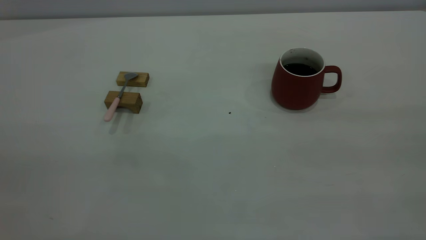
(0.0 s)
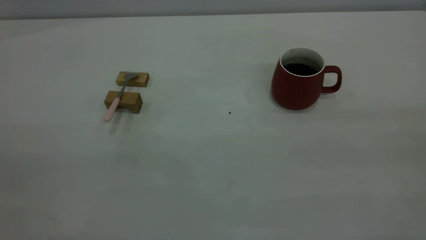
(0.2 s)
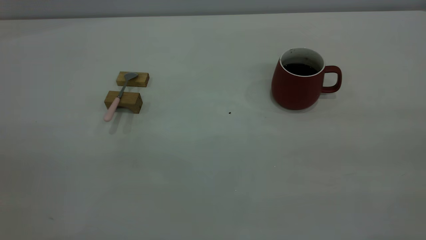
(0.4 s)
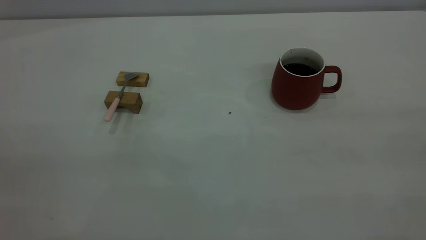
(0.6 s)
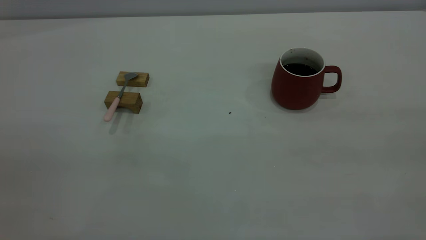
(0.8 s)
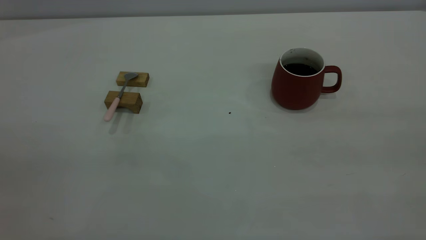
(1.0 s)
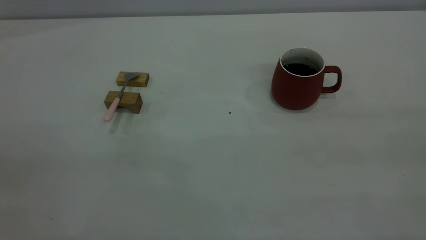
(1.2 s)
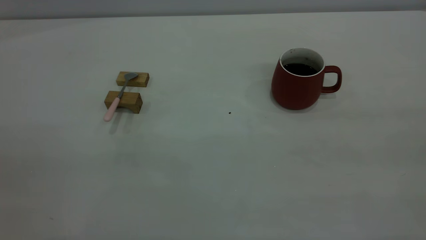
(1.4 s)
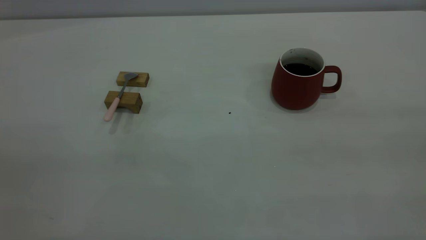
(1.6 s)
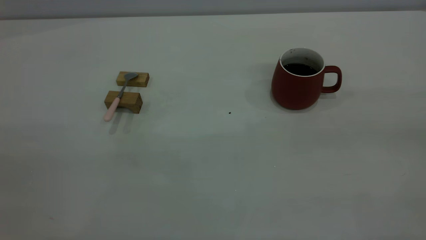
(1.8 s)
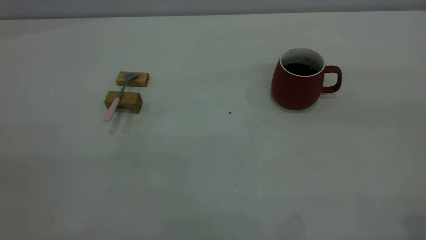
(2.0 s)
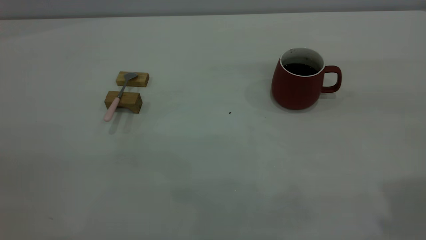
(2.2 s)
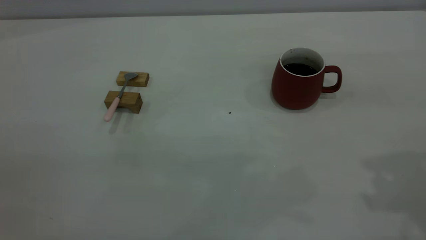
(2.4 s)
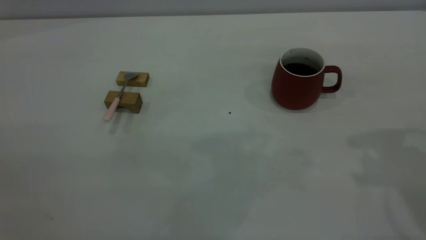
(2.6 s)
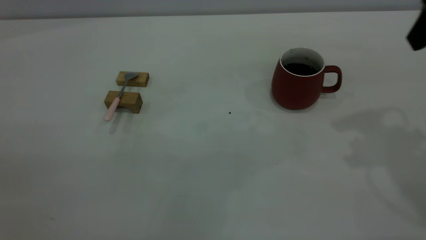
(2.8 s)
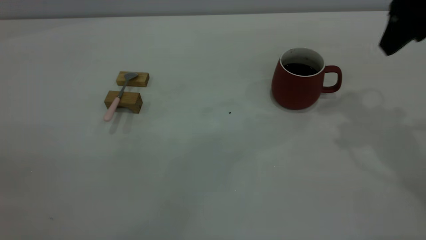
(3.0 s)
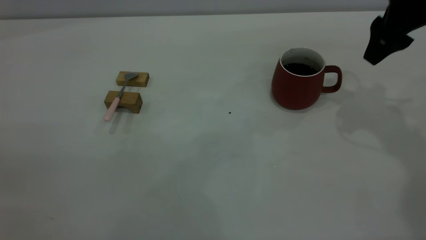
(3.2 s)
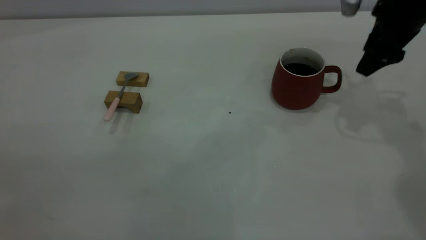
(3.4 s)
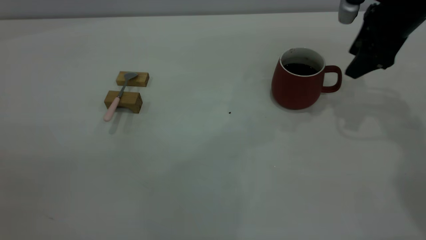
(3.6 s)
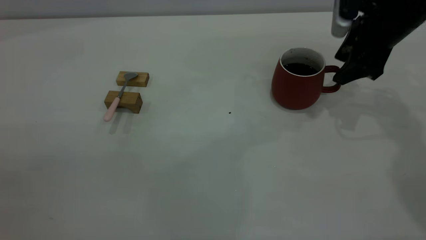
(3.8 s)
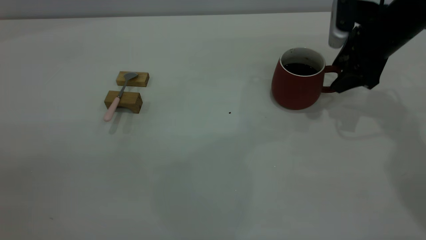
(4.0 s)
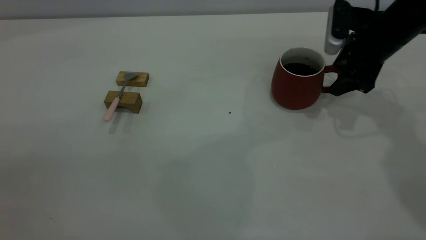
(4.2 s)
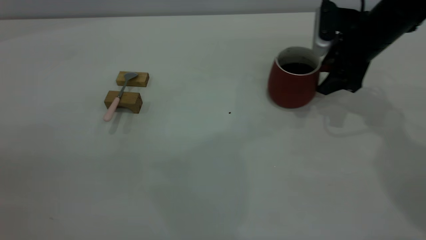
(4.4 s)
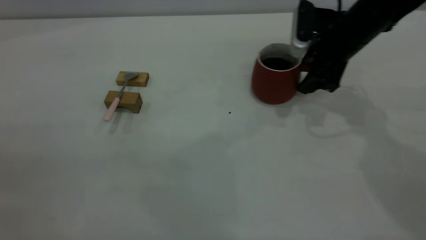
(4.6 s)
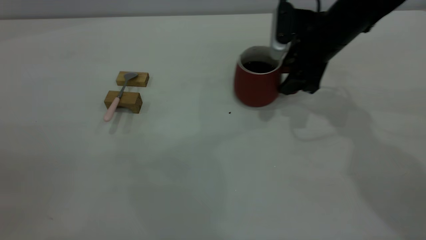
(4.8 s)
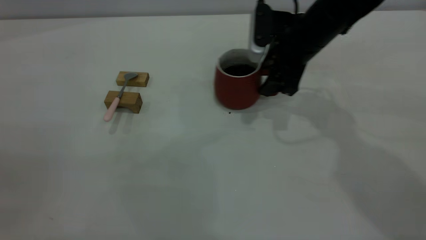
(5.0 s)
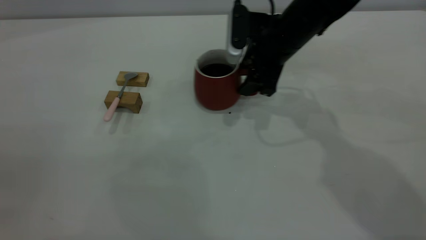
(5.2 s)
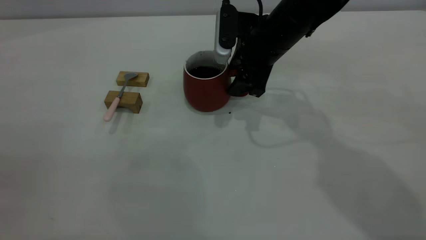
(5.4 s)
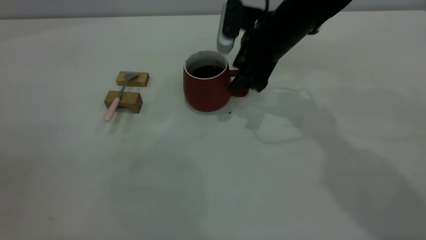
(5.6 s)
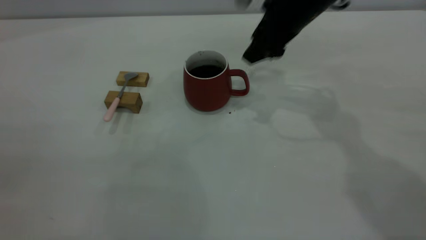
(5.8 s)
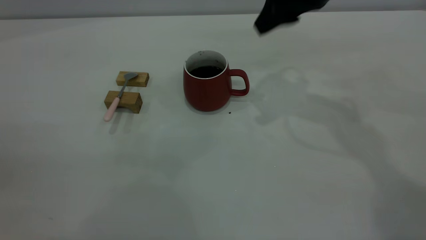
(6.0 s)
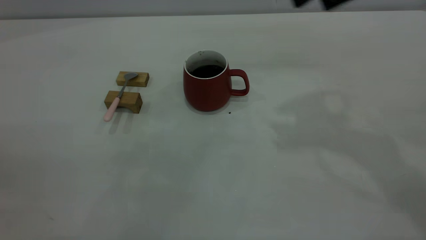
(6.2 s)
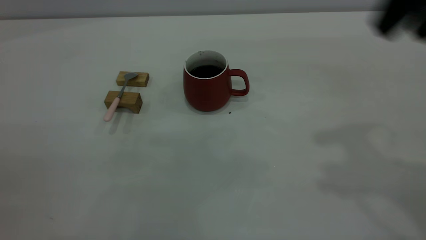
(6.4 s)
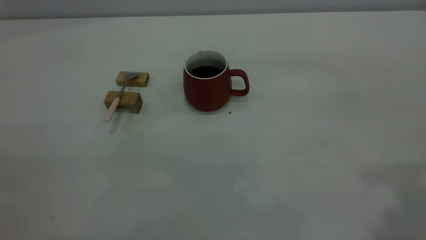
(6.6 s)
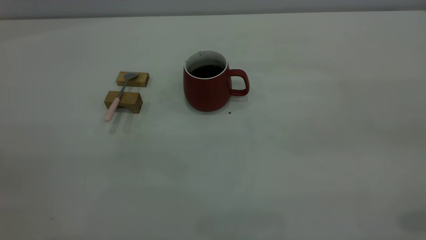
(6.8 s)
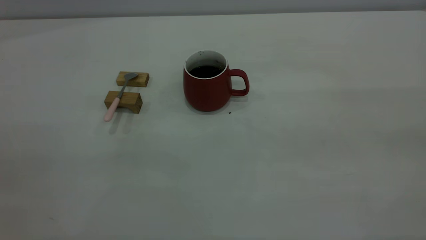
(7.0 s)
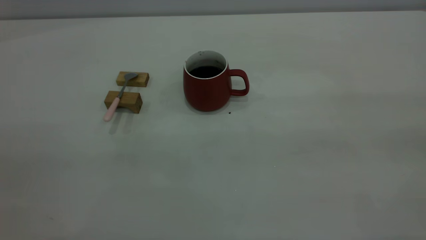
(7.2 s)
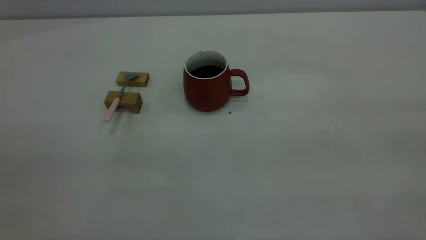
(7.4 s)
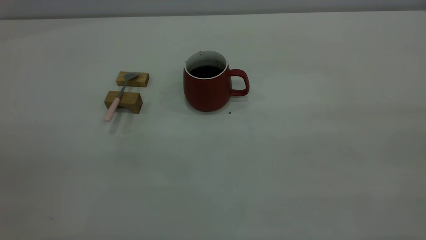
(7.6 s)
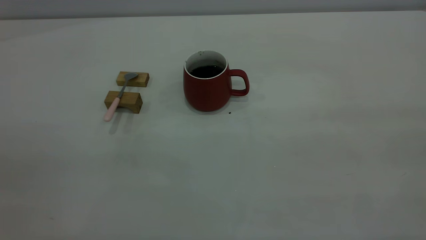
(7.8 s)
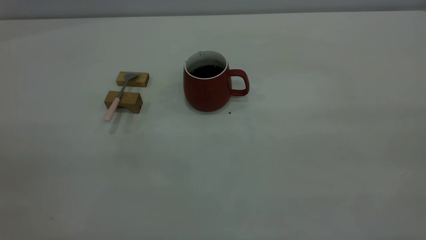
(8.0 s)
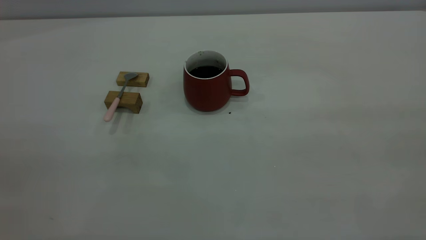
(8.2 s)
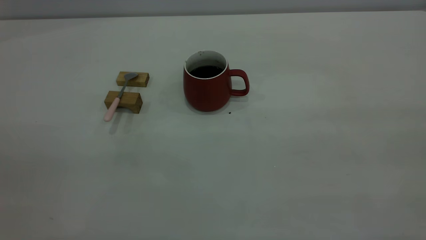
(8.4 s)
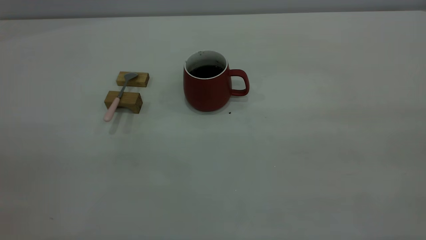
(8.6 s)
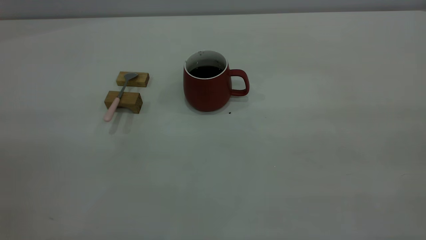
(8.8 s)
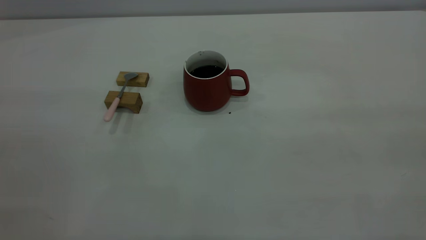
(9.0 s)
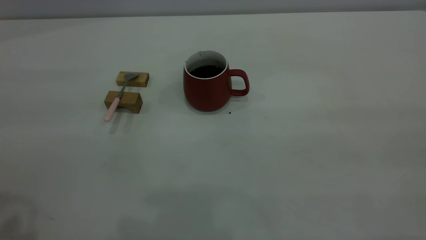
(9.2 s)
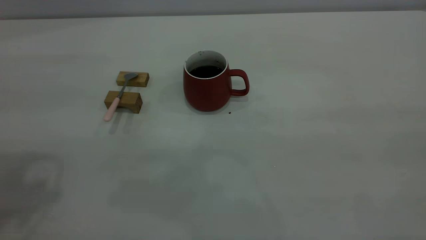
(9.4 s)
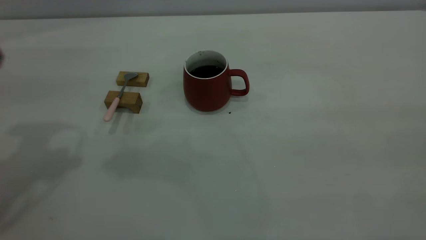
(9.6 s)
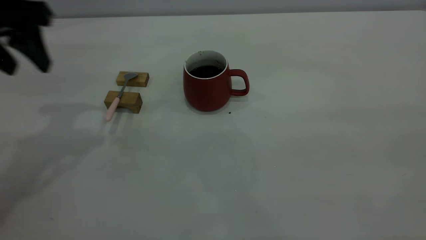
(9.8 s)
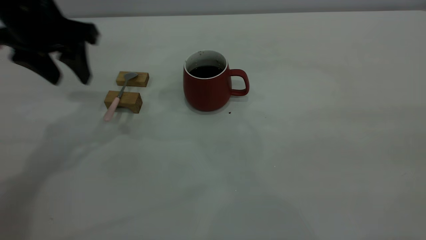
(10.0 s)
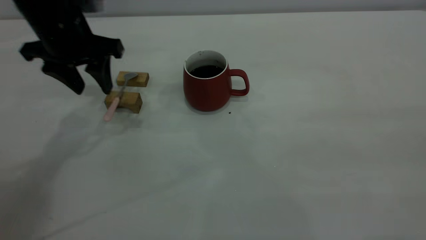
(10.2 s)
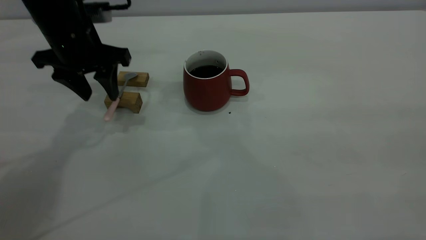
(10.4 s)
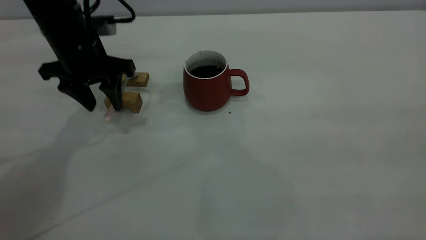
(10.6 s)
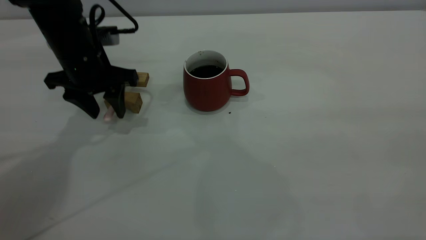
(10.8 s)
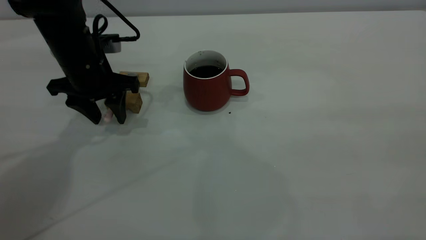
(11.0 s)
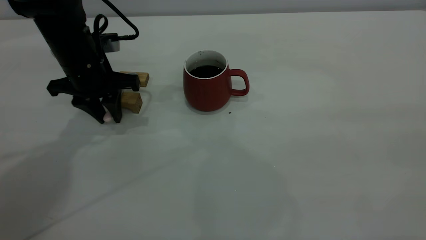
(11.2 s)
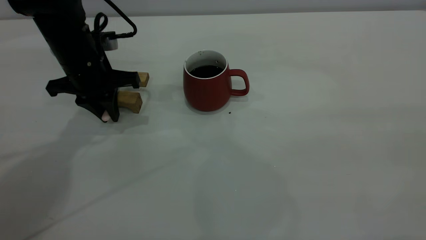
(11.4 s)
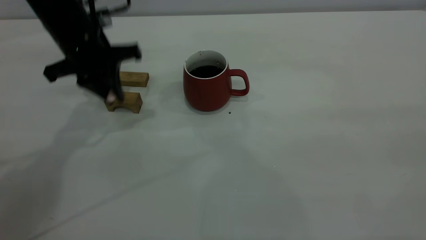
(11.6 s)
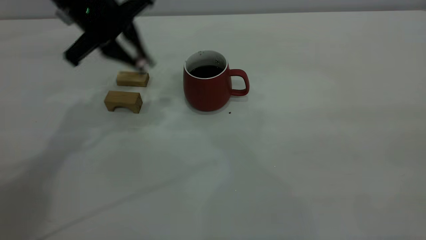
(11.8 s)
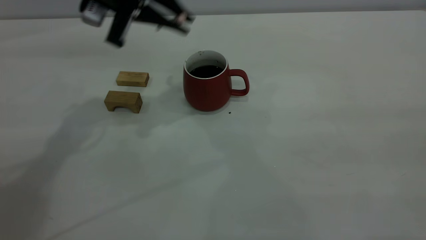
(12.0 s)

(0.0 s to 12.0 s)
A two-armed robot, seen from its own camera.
Step, 0.0 s - 5.6 s: Move the cup with coffee to the center of view.
Step, 5.8 s - 11.6 s: Pick up the spoon.
0.0 s - 1.6 s: Both grippers stay put.
1.6 s - 3.0 s: The right gripper goes about 35 cm forward.
3.0 s - 4.4 s: The right gripper is displaced downward and forward by some 15 cm.
4.4 s - 6.0 s: The right gripper is displaced upward and to the left by approximately 15 cm.
6.0 s - 7.6 s: The right gripper shifts approximately 40 cm backward.
9.0 s - 10.4 s: The left gripper shifts approximately 40 cm forward and downward.
10.4 s - 12.0 s: The left gripper goes approximately 10 cm upward and to the right, and closes up.

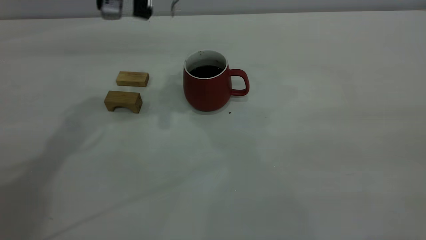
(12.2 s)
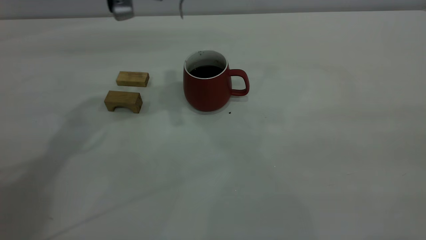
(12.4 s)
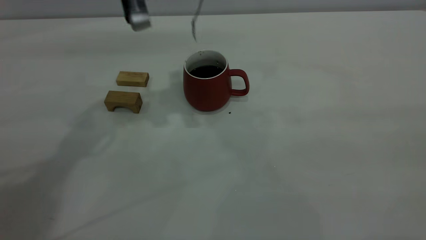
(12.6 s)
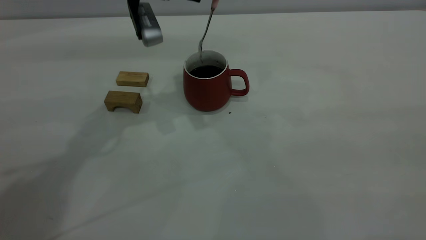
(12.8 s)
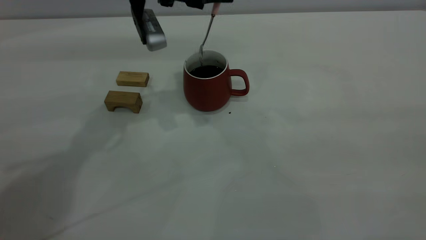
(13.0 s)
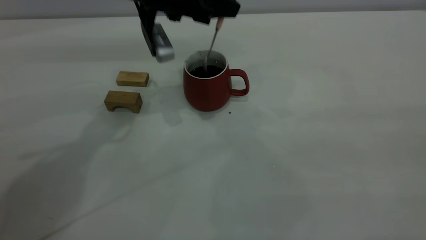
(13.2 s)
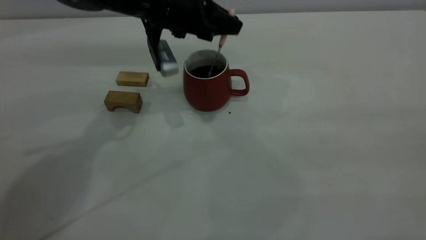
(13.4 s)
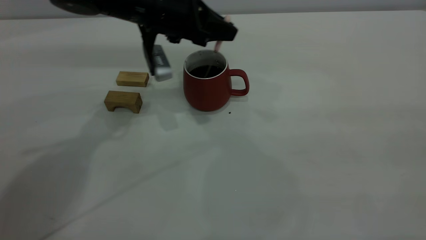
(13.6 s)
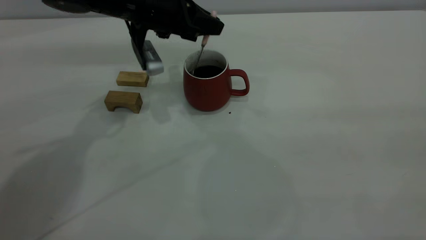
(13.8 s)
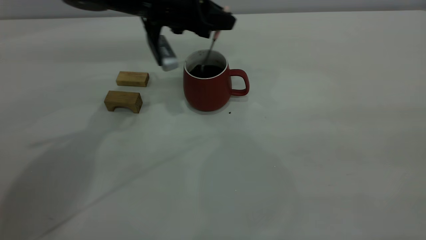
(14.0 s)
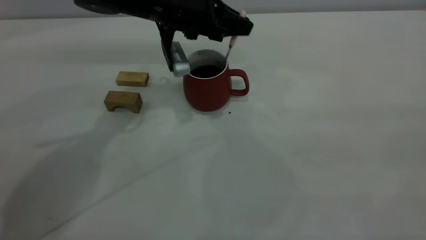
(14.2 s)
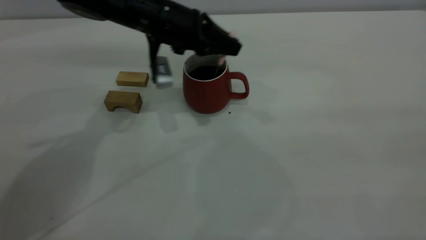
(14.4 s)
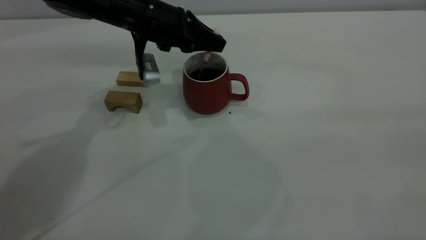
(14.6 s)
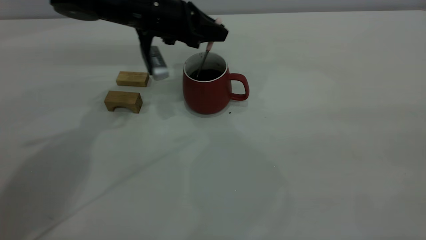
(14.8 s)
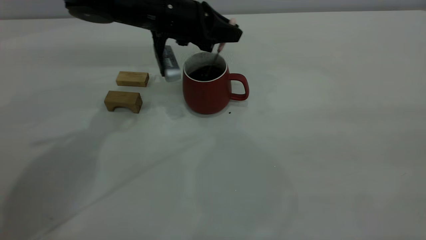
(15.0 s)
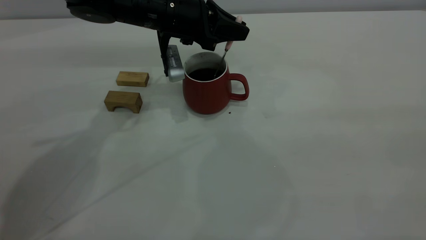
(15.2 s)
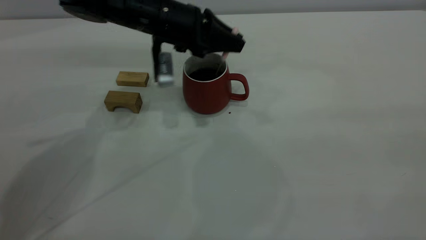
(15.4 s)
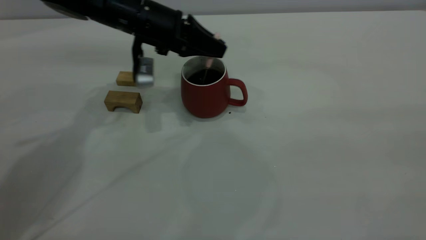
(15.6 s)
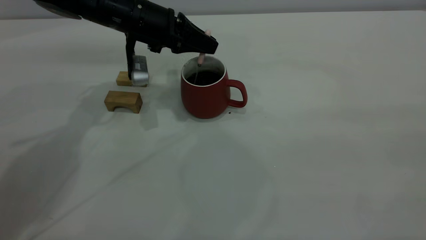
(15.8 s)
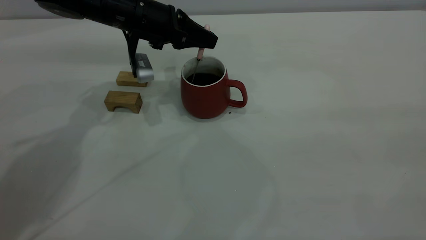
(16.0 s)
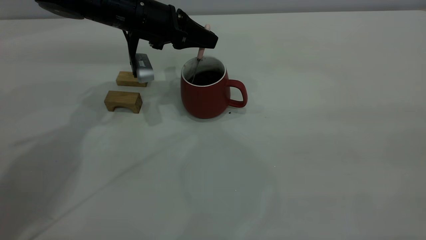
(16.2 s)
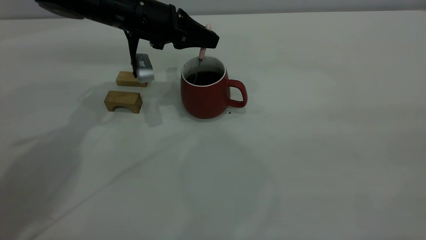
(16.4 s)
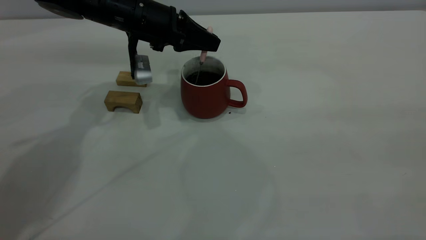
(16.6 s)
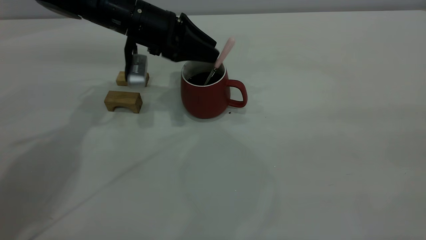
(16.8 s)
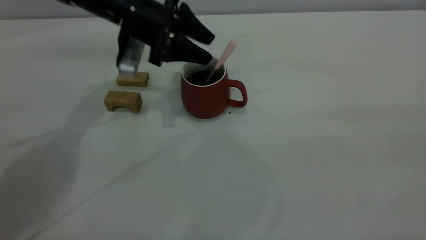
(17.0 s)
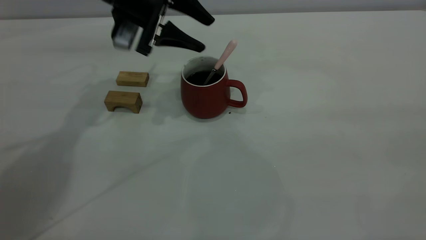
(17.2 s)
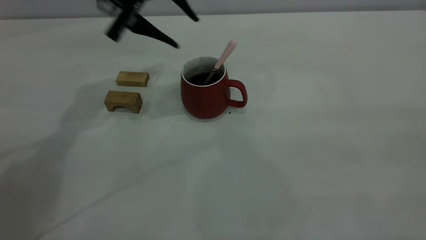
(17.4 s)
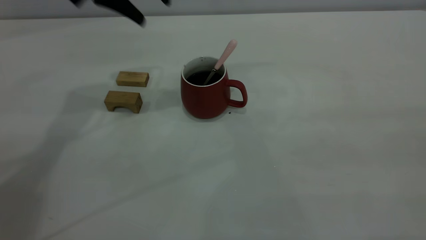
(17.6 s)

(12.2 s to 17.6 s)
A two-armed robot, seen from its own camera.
Step, 12.2 s - 17.2 s: Stir the coffee in the cup.
12.2 s - 13.6 s: The left gripper shifts about 10 cm downward.
13.6 s - 16.2 s: The grippers stay close to where they were, moving slightly.
16.2 s - 17.6 s: The left gripper heads upward, covering approximately 15 cm, and opens up.
